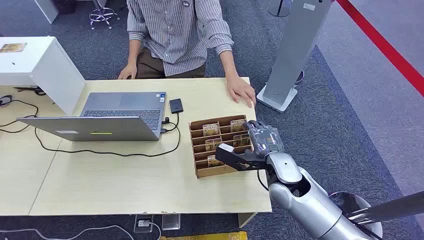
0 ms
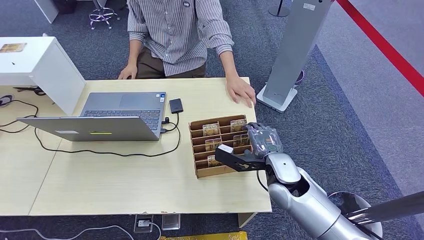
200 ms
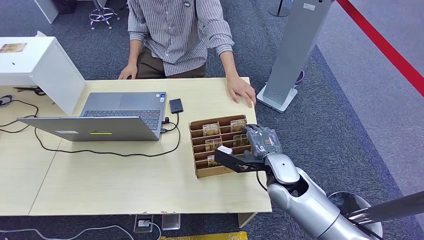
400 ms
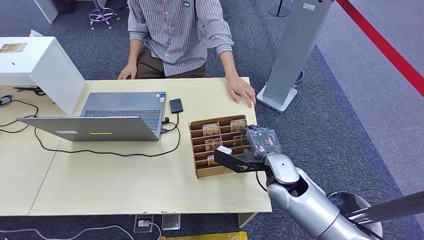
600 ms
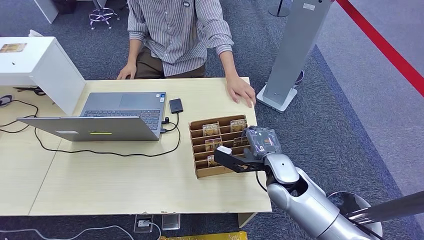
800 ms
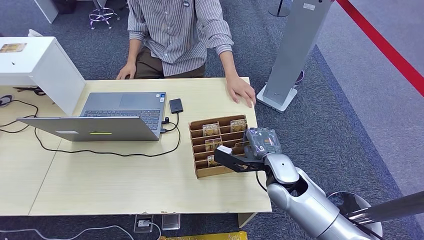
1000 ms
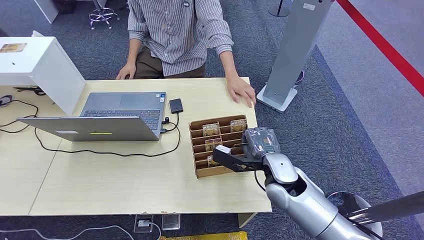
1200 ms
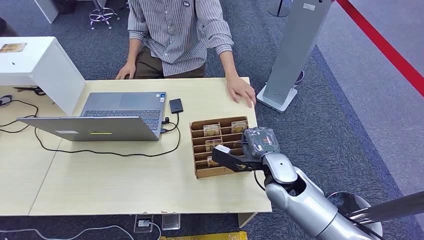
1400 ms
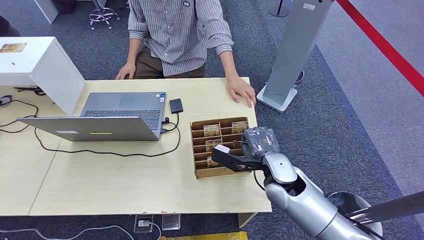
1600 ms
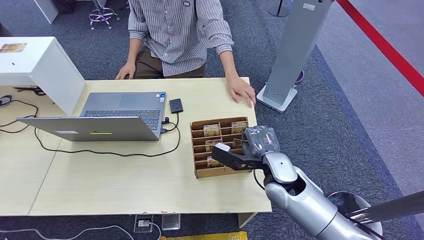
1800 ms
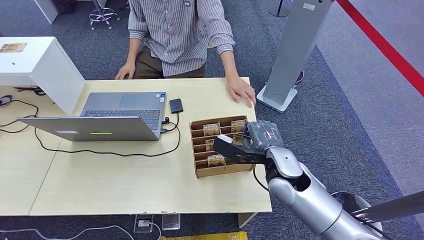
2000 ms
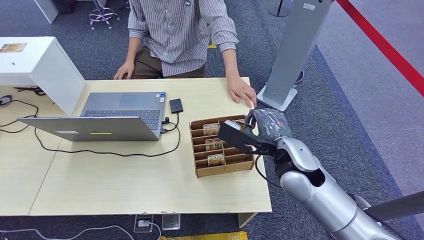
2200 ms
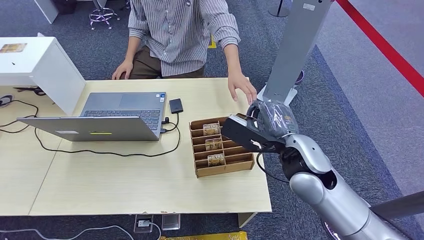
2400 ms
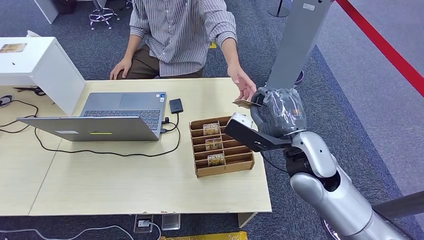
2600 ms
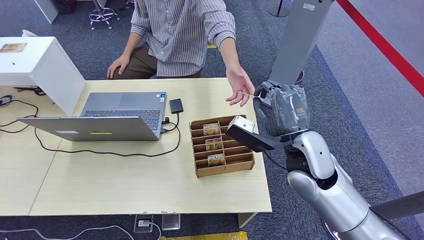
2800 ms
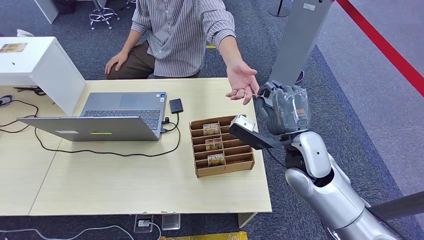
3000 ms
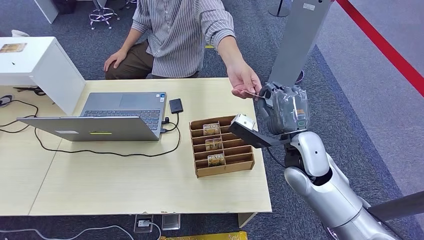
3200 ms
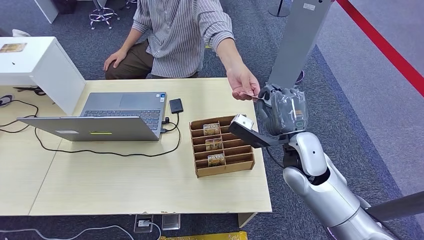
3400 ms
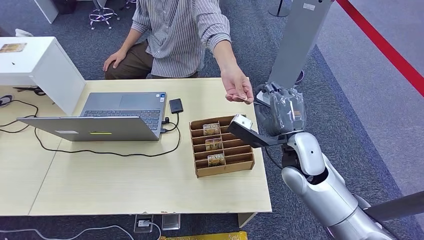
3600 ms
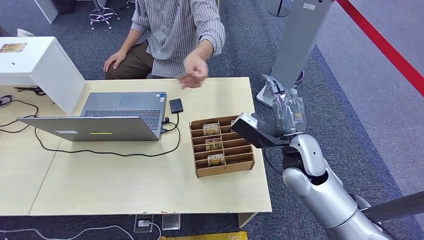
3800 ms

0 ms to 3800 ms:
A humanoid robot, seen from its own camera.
Step, 0 ms to 2200 ms: Pick up the room card from the card holder.
Step, 3000 ms to 3800 ms: Hand the room card to the target.
1200 ms to 2600 ms: The right hand shifts roughly 10 cm upward.
2600 ms to 3800 ms: The right hand ends up approximately 5 cm from where it was.
